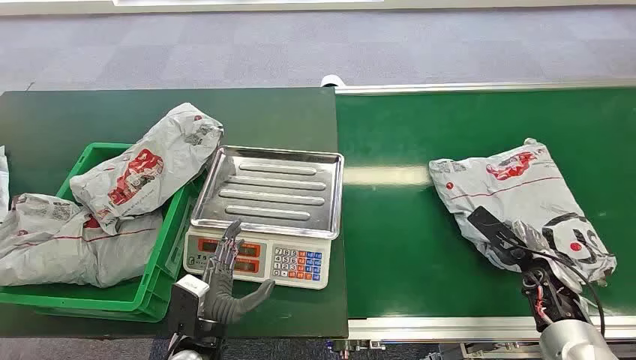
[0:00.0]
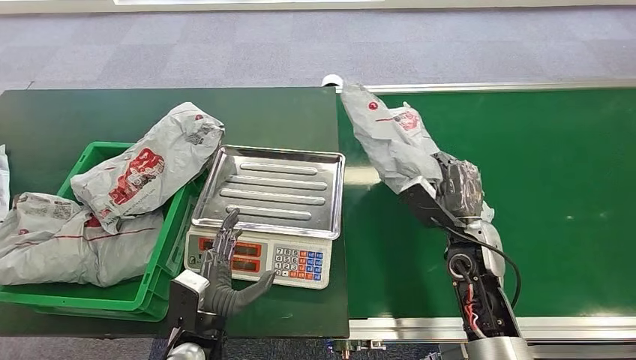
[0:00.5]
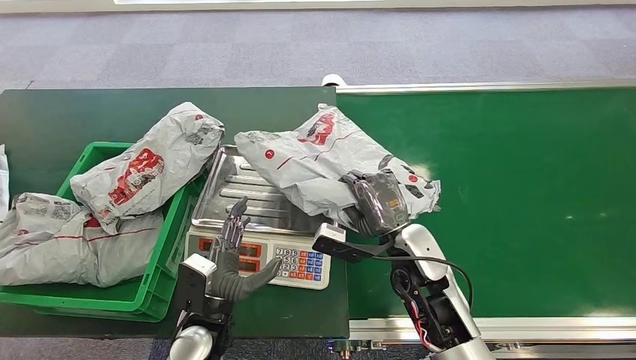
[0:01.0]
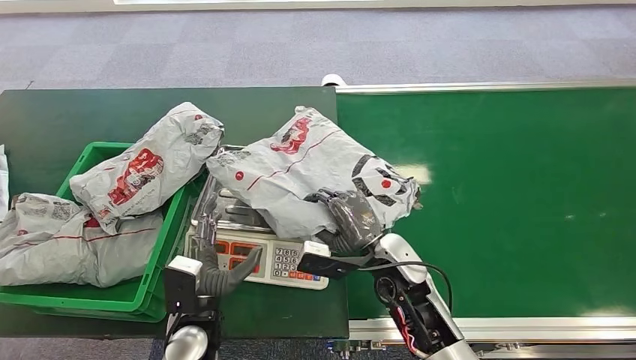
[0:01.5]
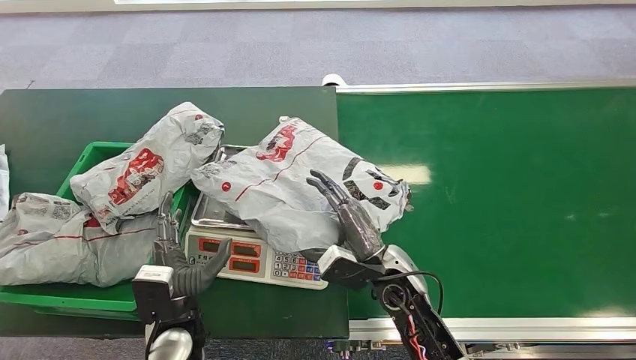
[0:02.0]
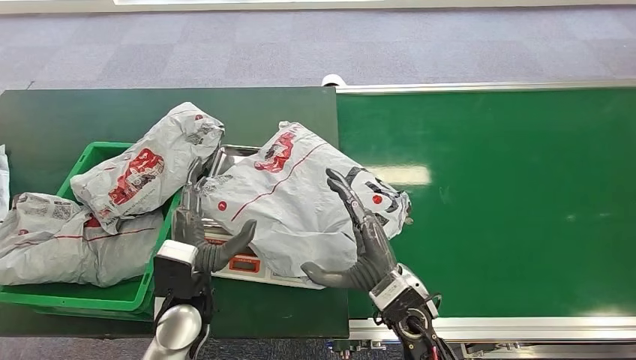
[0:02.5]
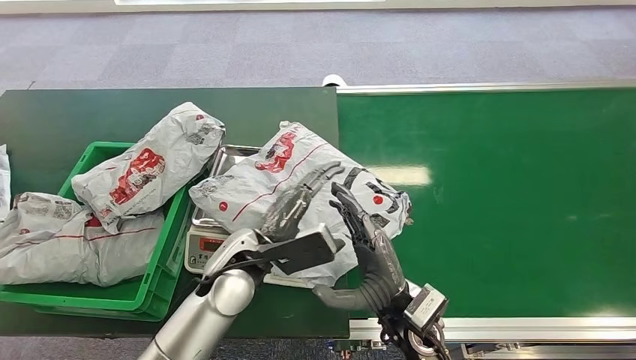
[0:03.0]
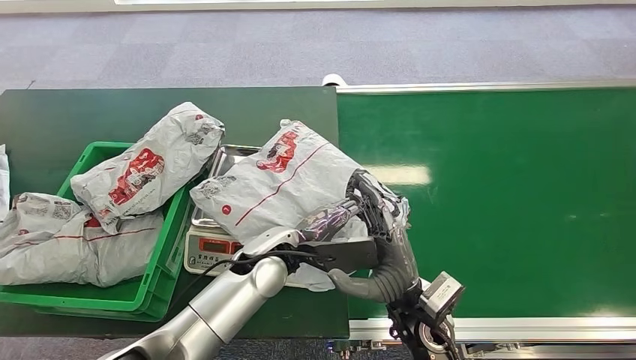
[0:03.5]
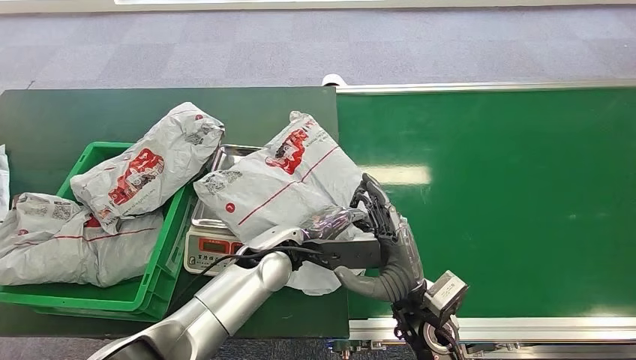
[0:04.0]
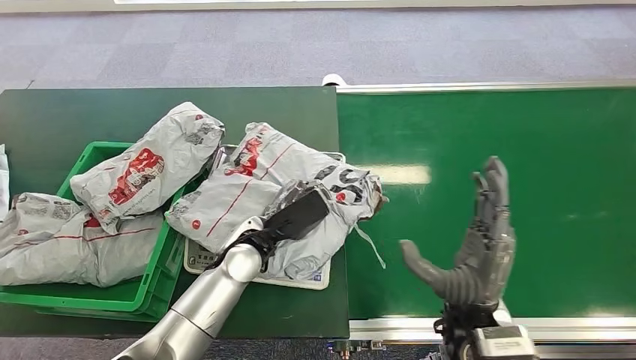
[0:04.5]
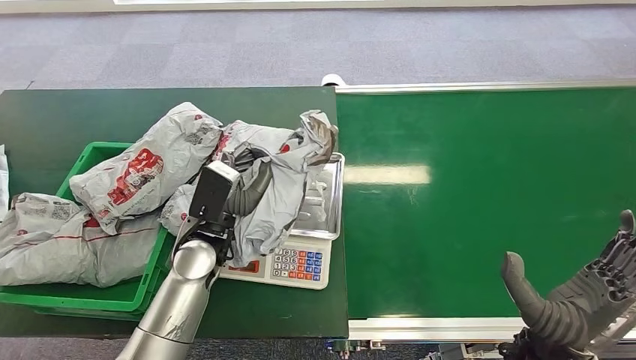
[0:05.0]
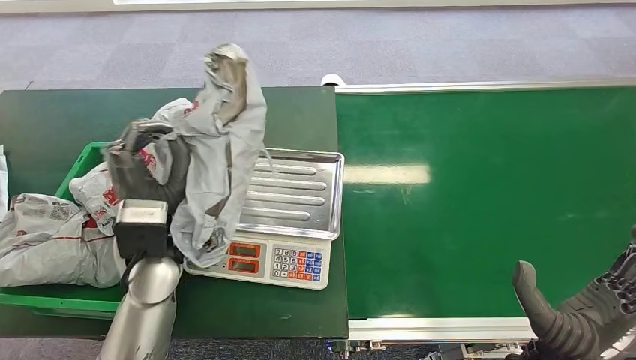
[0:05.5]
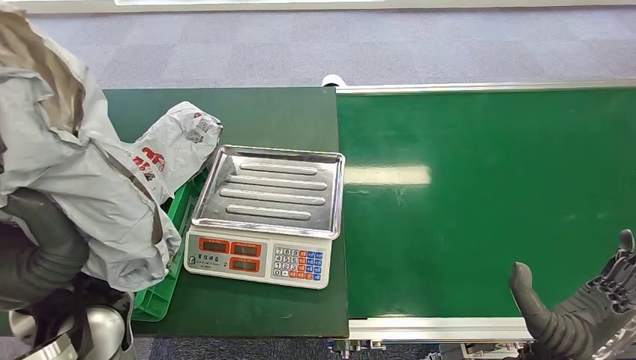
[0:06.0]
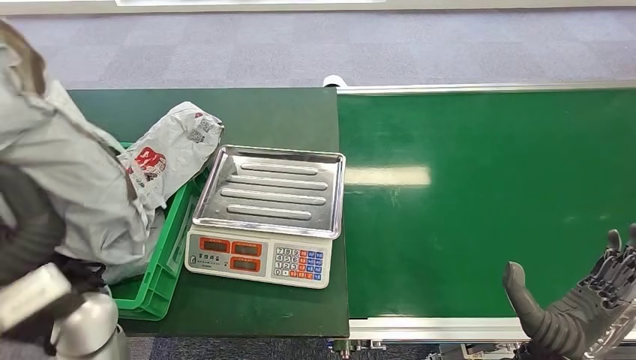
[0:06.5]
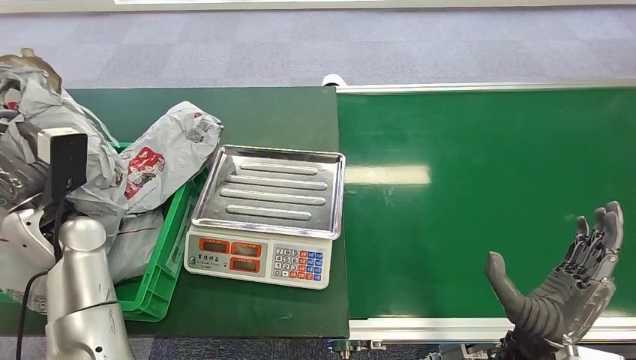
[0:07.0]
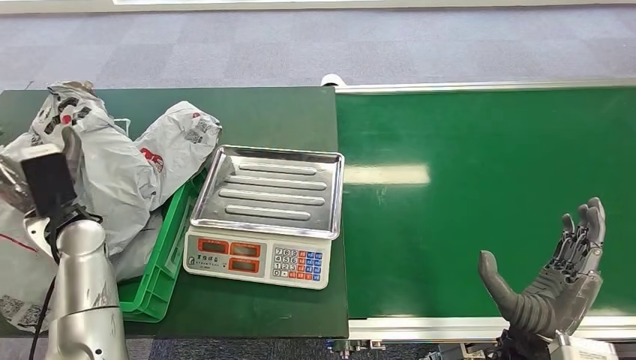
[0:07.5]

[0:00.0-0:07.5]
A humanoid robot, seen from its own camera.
Step, 0:00.0 to 0:00.5: Pick up the package from the conveyor belt.
Step, 0:01.0 to 0:01.5: Place the package onto the inbound machine.
Step, 0:05.0 to 0:05.5: Pick up the package from the inbound machine.
Step, 0:07.0 to 0:07.5: Place the package into the parcel locker.
0:02.0 to 0:04.0: The right hand heads backward, covering about 5 cm. Meanwhile the left hand moves to the right, forward and upward, approximately 20 cm.

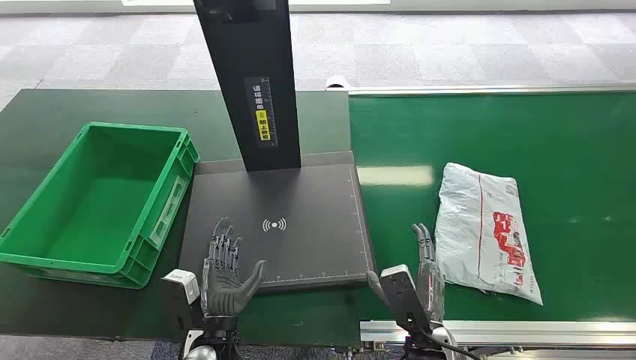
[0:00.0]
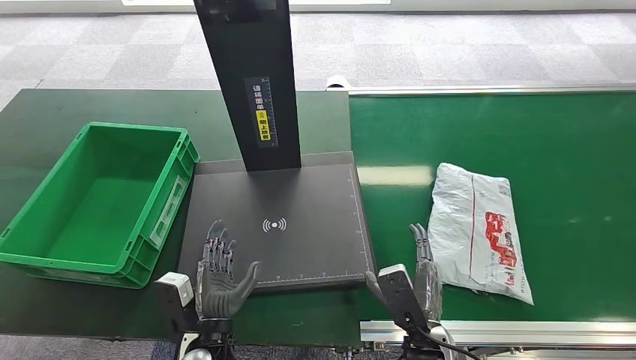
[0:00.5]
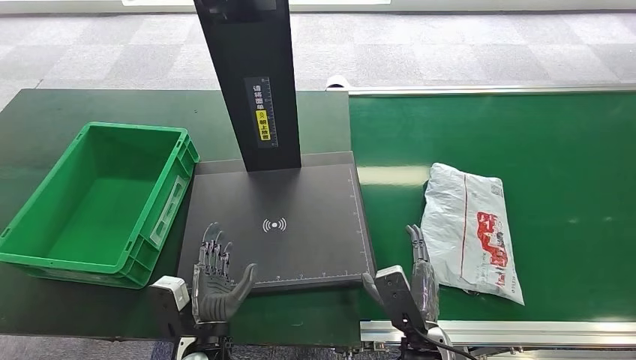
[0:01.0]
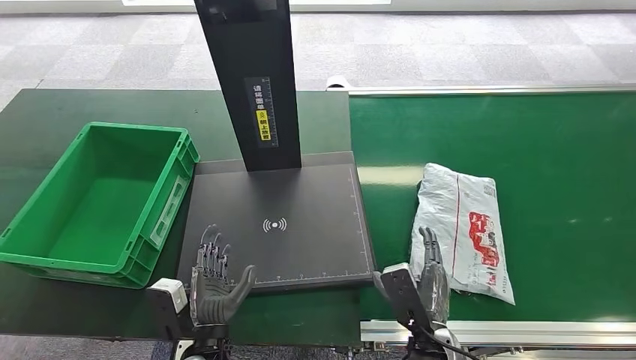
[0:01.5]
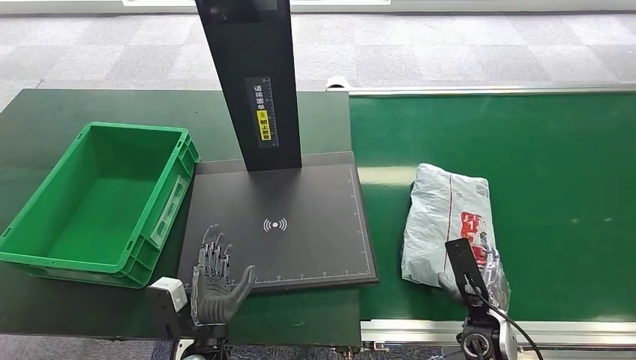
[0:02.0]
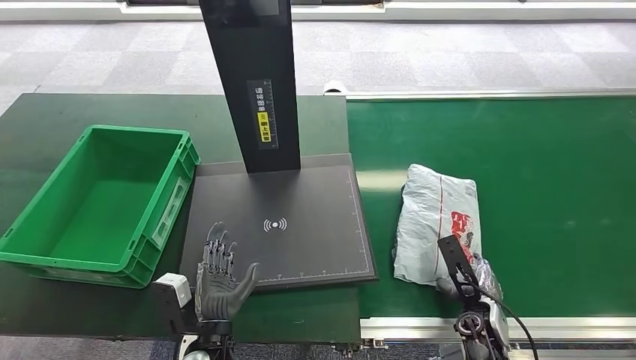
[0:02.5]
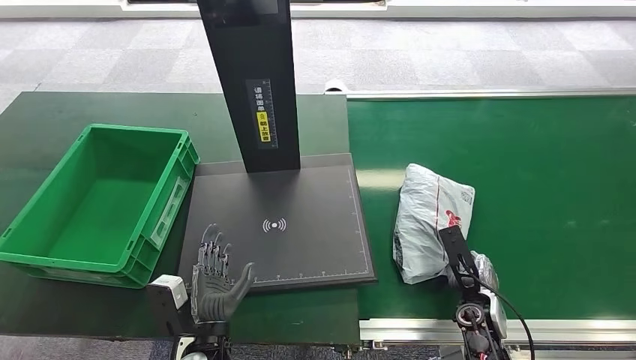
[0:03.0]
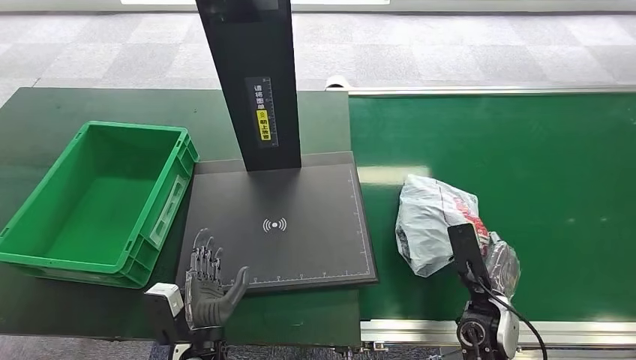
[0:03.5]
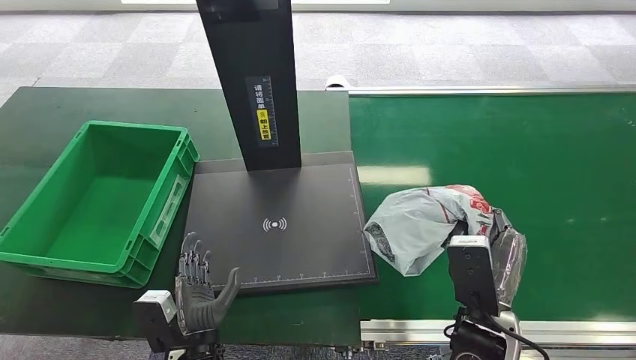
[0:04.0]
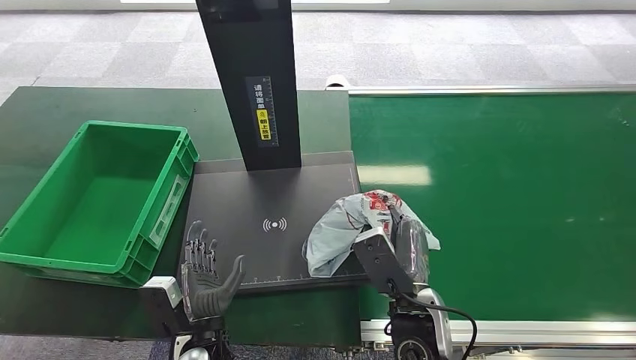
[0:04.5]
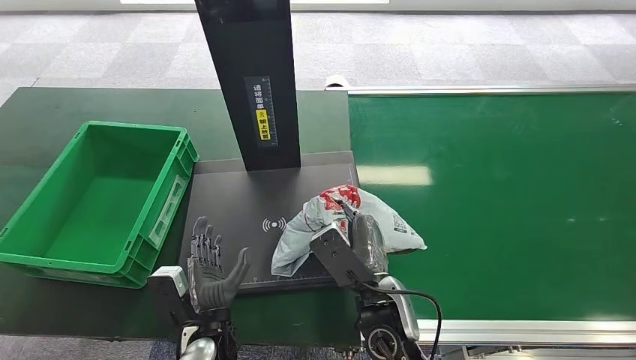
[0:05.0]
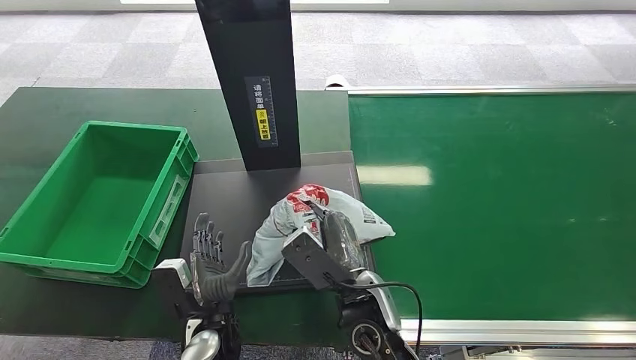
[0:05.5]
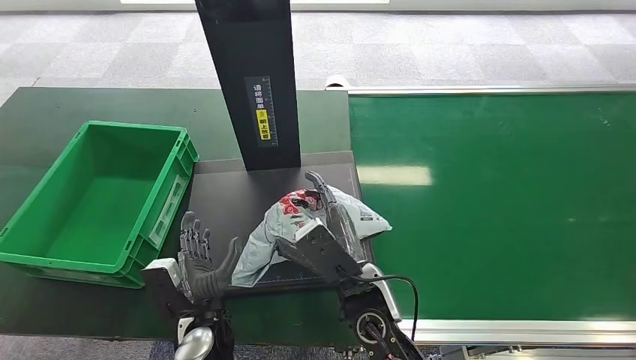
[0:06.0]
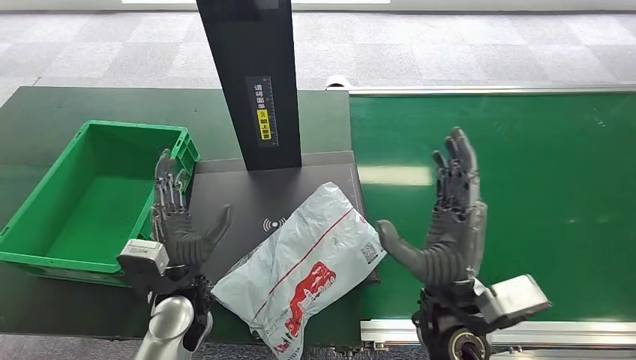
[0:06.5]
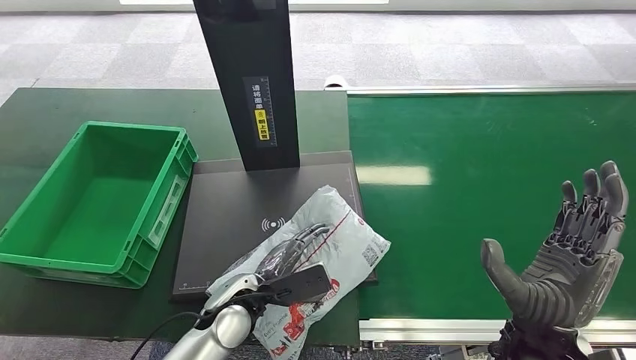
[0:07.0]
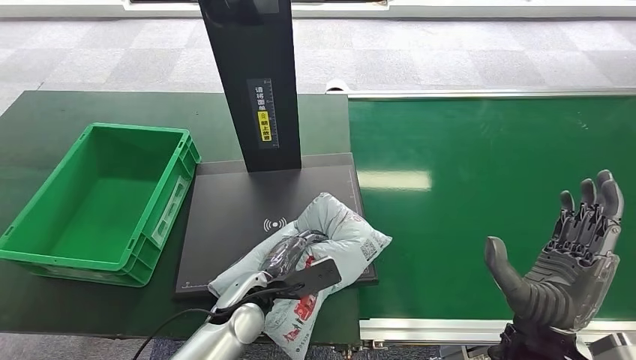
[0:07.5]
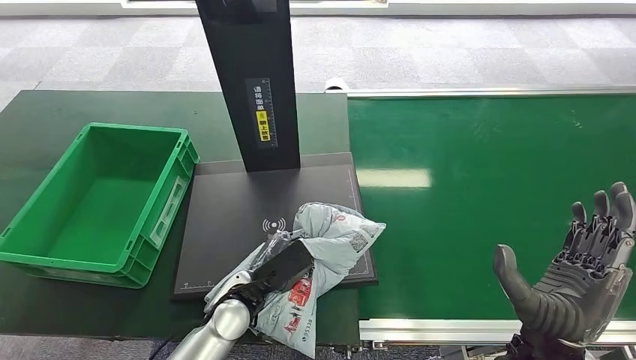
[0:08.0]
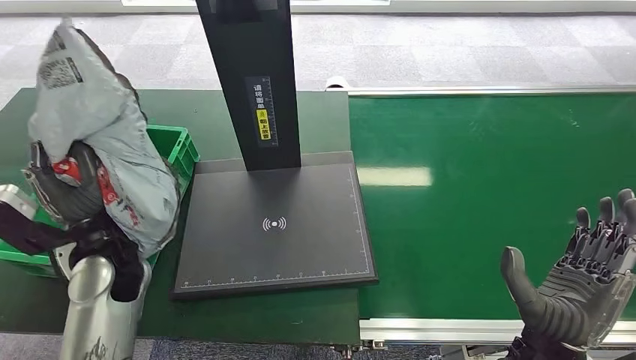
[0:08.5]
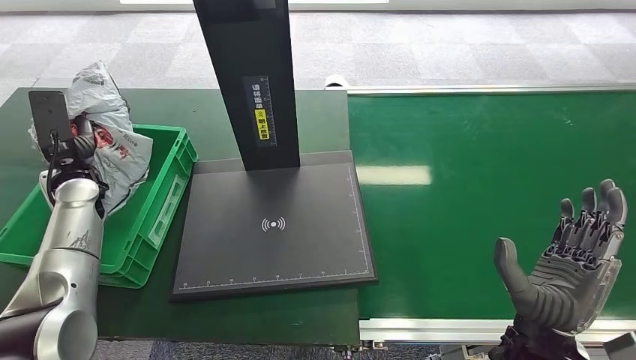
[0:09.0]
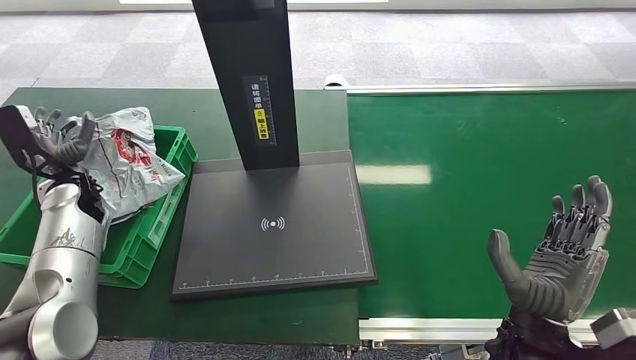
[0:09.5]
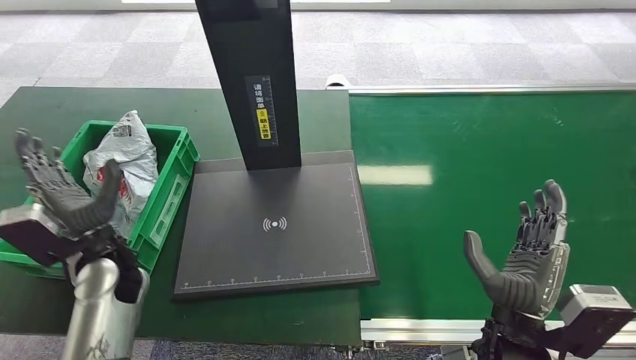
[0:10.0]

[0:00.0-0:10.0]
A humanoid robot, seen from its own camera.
Step, 0:00.0 to 0:04.0: Pick up the package from the conveyor belt.
Step, 0:04.5 to 0:06.5: Place the package onto the inbound machine.
Step, 0:07.0 to 0:08.5: Pick up the package from the inbound machine.
Step, 0:09.0 to 0:10.0: Place the package into the parcel locker.
0:02.0 to 0:04.0: The right hand travels upward and to the left by about 15 cm.
0:04.0 to 0:06.0: The left hand heads forward, covering roughly 5 cm. Meanwhile the right hand heads to the left, covering about 15 cm.
0:06.0 to 0:08.0: The right hand shifts approximately 20 cm to the right.

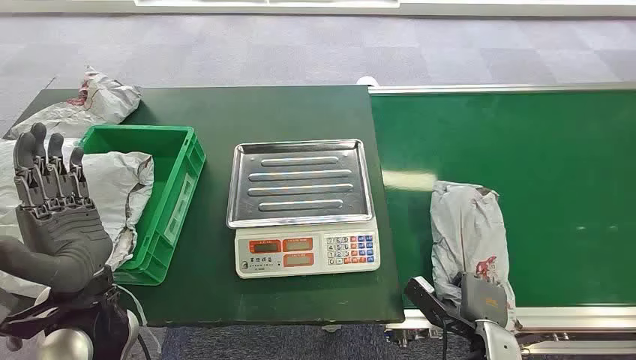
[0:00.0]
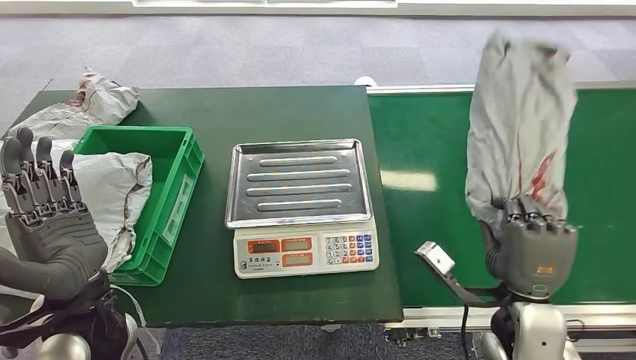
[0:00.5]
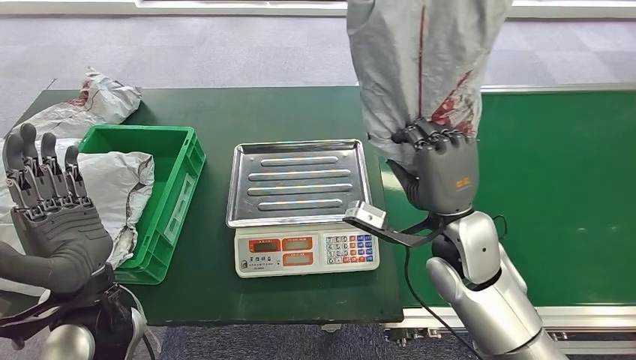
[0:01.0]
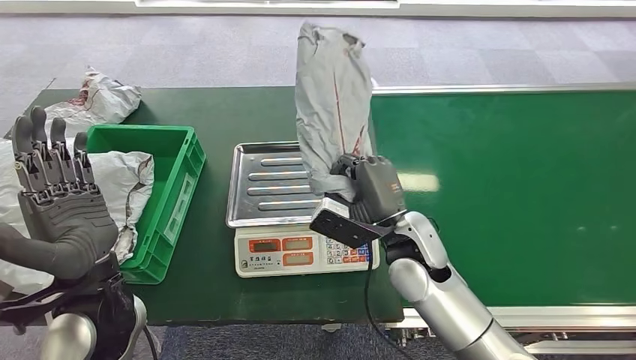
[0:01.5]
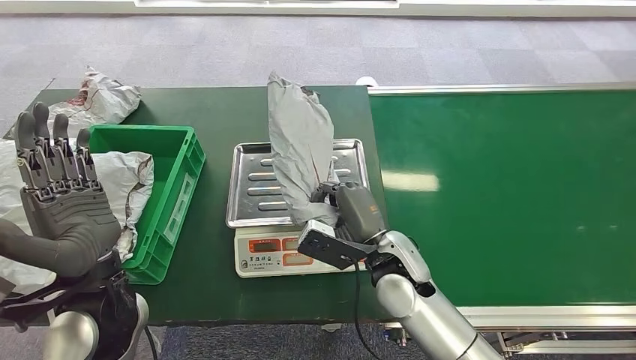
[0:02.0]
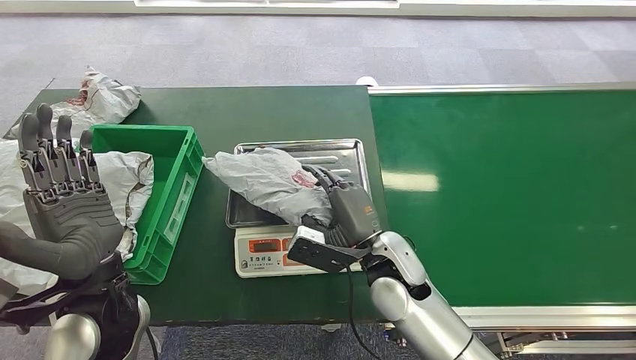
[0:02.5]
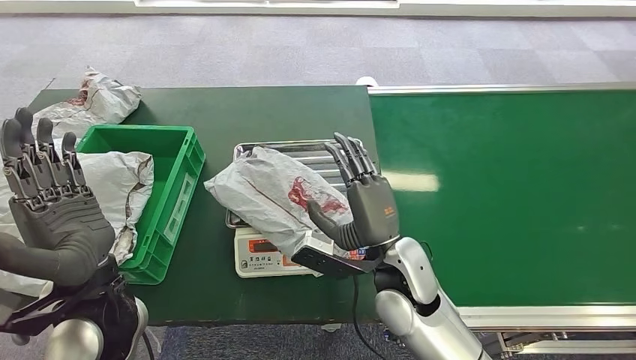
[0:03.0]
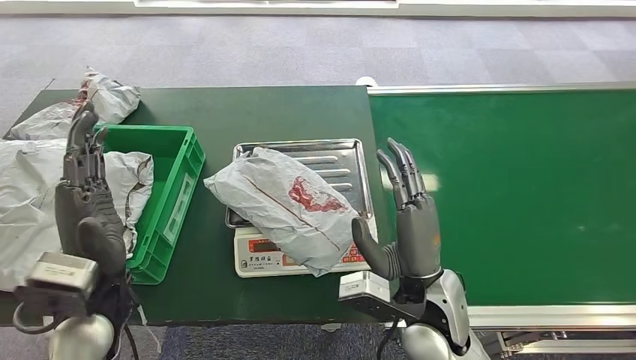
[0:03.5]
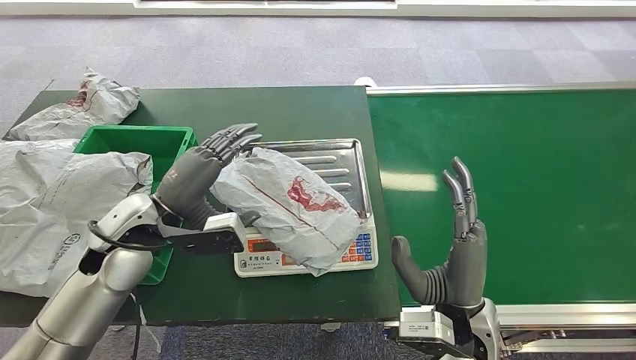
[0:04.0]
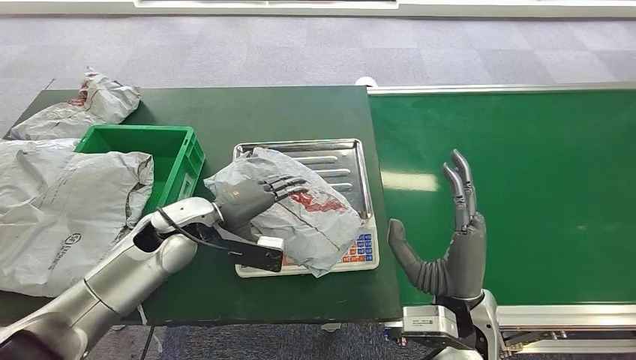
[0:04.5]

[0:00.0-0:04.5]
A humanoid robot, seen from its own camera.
Step, 0:00.0 to 0:01.0: Pick up the package from the conveyor belt.
Step, 0:01.5 to 0:04.0: Place the package onto the inbound machine.
